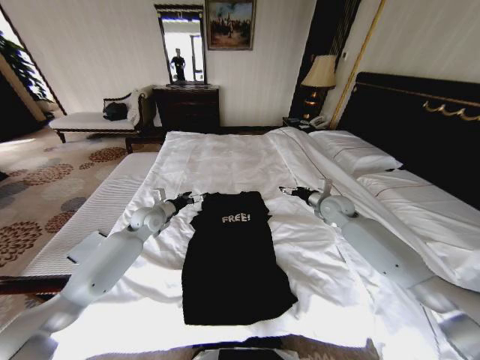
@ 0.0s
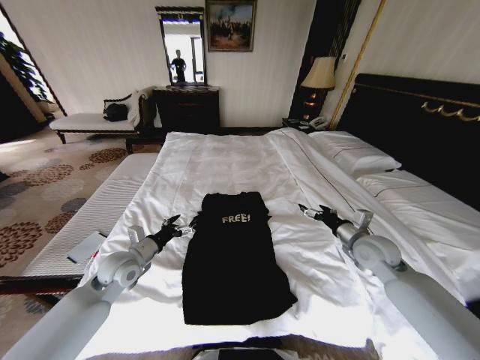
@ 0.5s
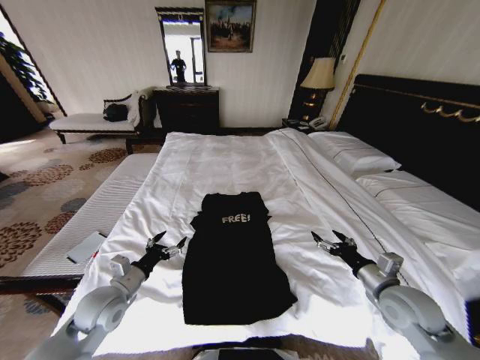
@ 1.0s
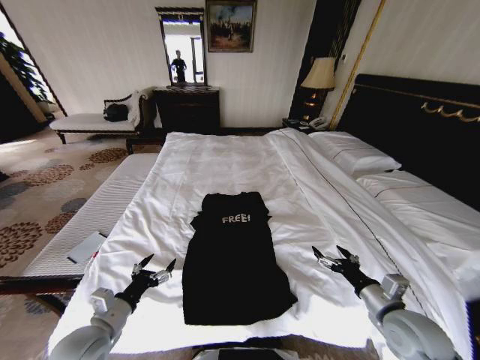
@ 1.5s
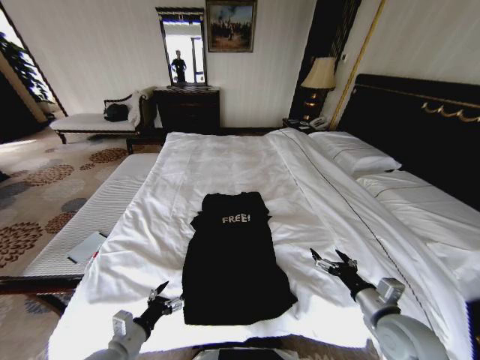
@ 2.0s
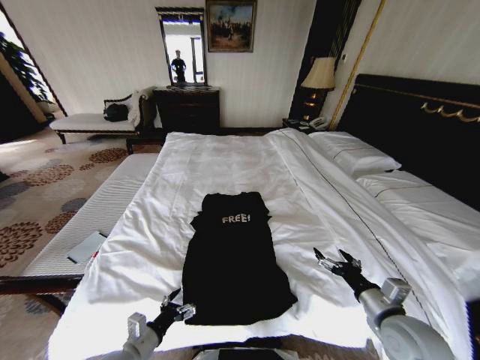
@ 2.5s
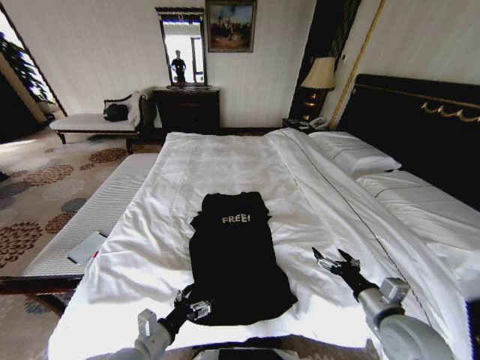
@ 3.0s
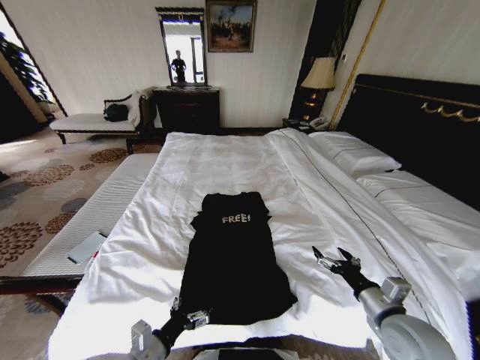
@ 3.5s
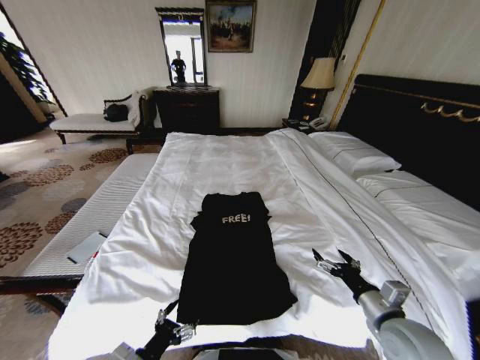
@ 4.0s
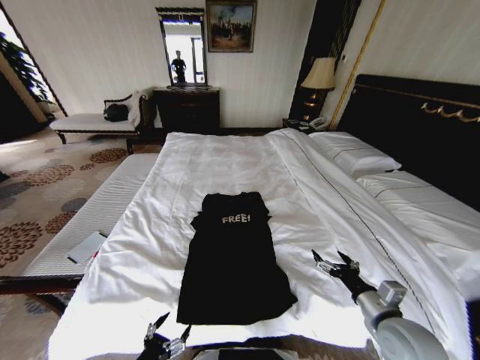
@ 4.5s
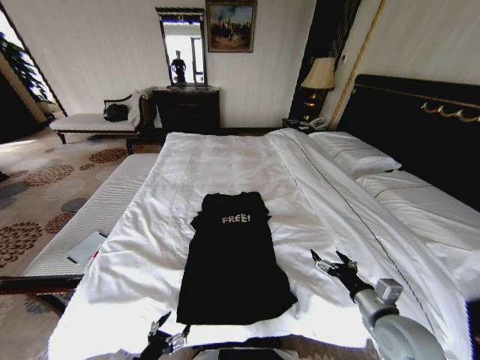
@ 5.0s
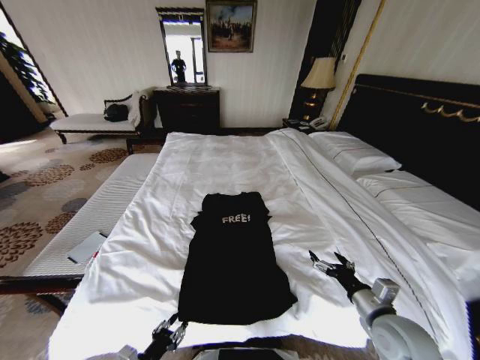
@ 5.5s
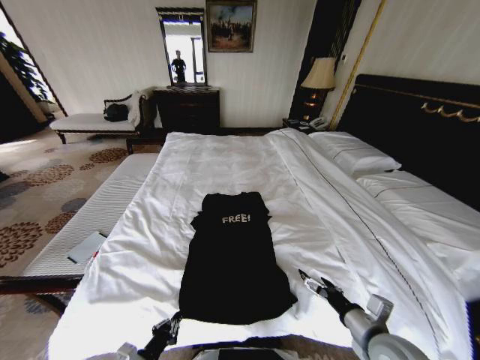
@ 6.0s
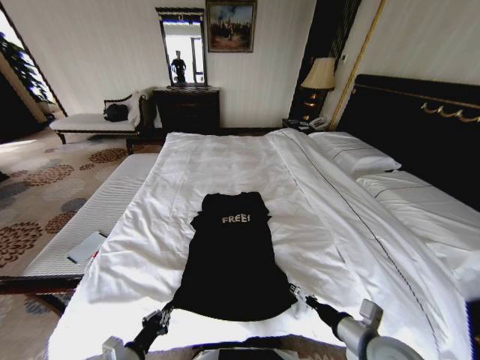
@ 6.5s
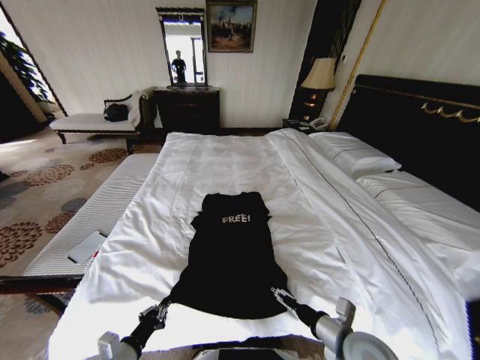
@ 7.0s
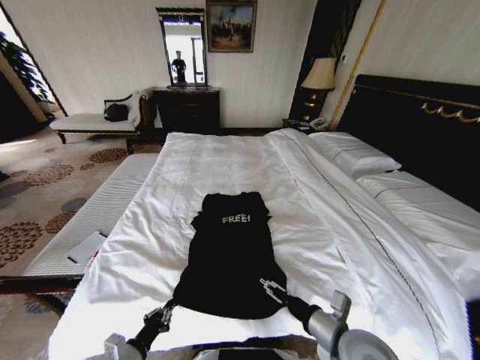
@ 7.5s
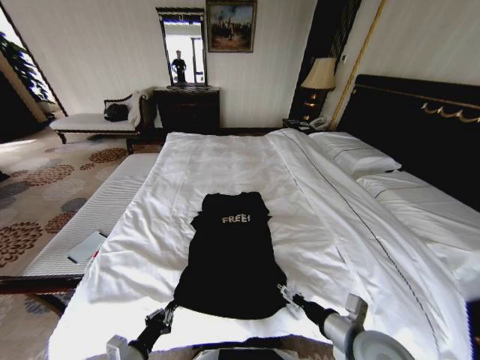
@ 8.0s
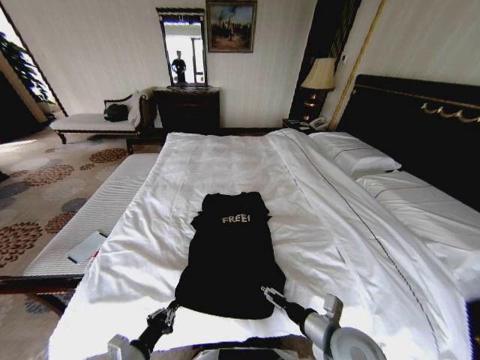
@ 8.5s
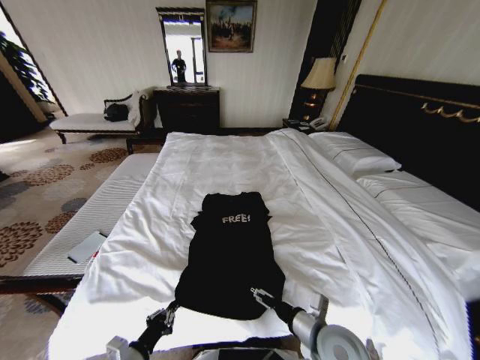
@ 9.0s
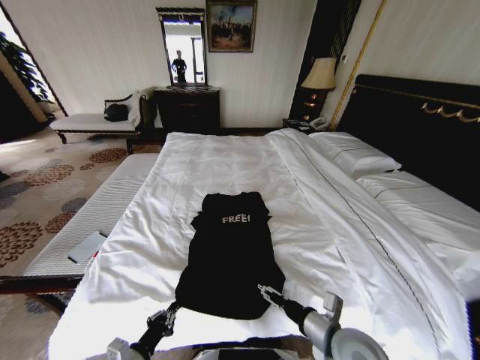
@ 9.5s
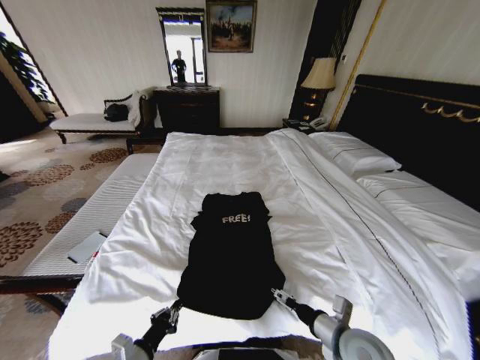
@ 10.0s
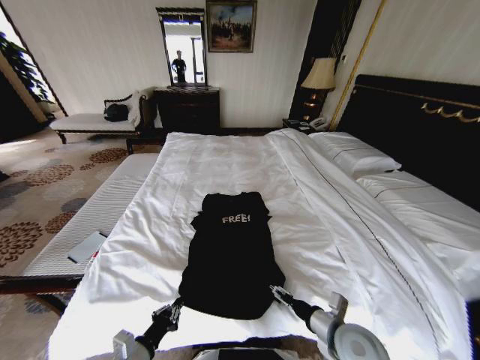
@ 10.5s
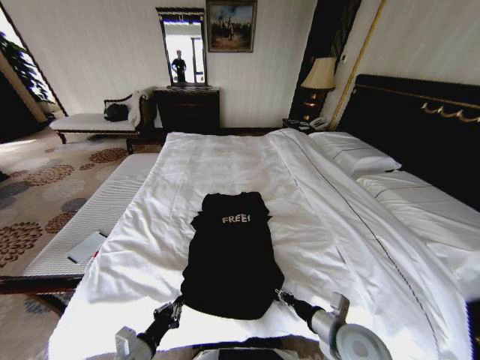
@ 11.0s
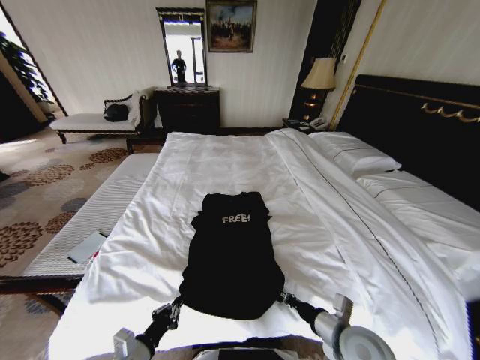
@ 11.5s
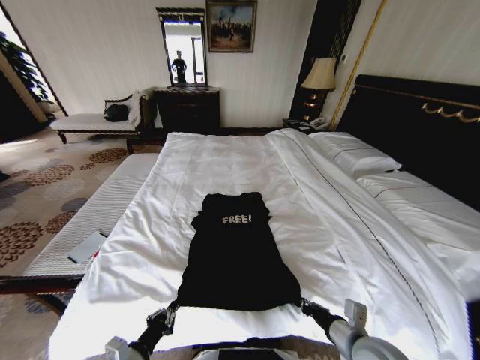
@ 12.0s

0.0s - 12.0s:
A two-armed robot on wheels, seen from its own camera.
Task of the whole recording: Fold the clothes on the bed.
0.0s - 2.0s: The grippers both shift backward by some 35 cm.
2.0s - 4.0s: The left gripper is displaced backward by roughly 5 cm.
4.0s - 6.0s: The left gripper heads downward, covering roughly 5 cm, and closes up.
6.0s - 8.0s: The right gripper travels to the left by roughly 5 cm.
10.0s - 12.0s: The right gripper closes.

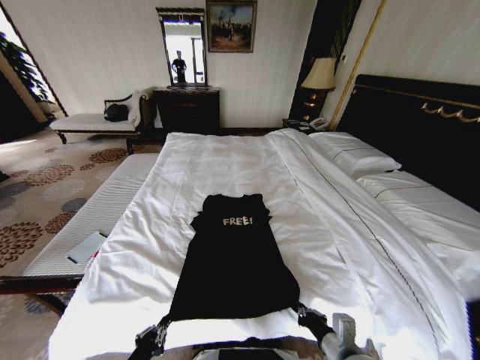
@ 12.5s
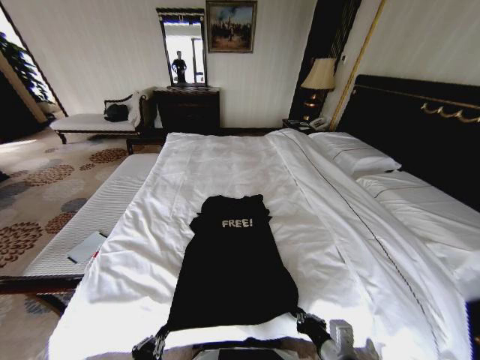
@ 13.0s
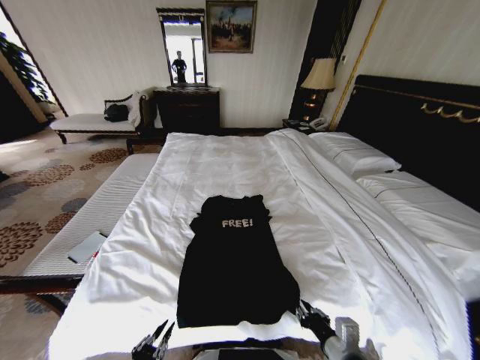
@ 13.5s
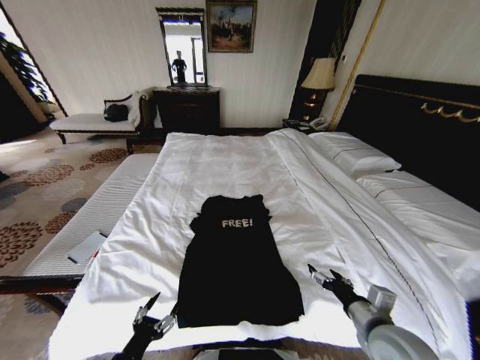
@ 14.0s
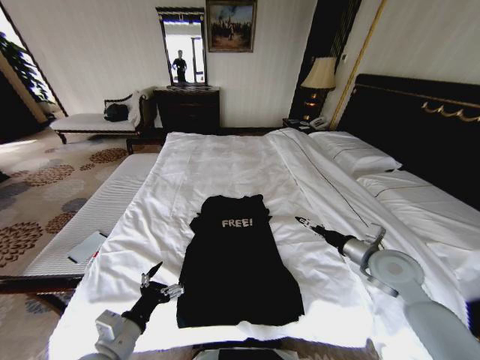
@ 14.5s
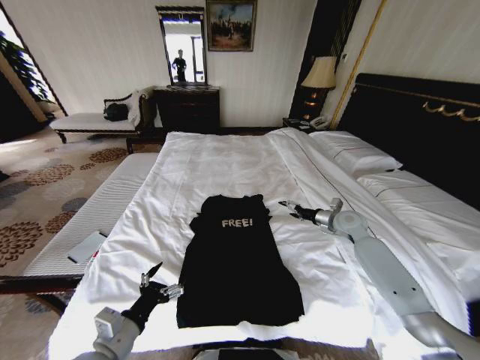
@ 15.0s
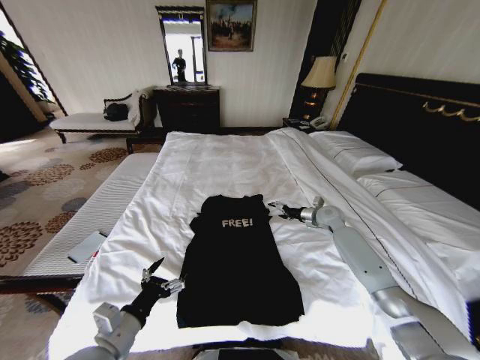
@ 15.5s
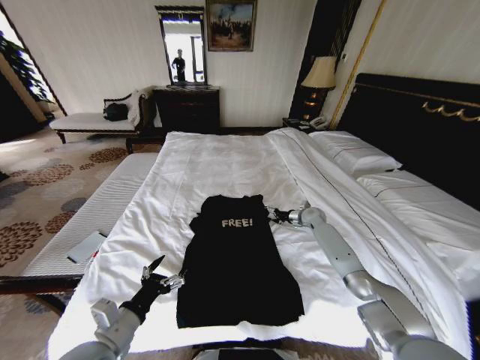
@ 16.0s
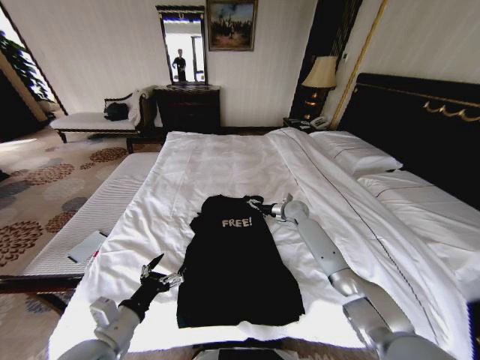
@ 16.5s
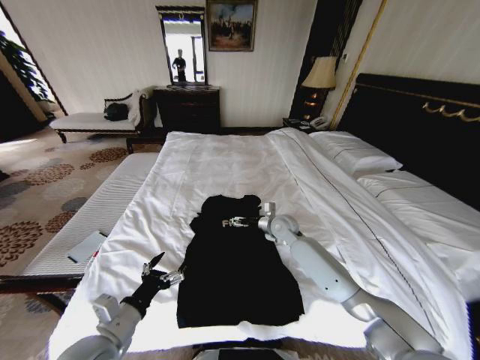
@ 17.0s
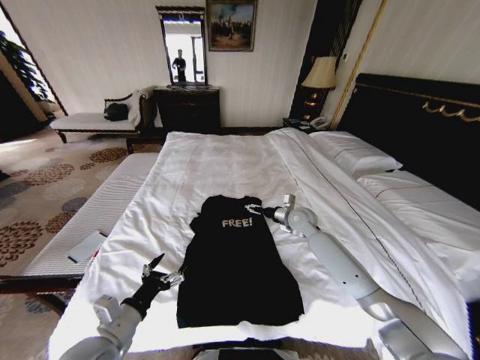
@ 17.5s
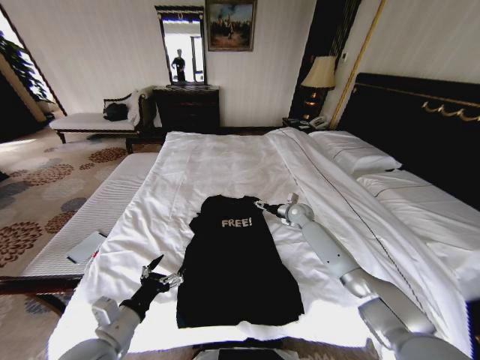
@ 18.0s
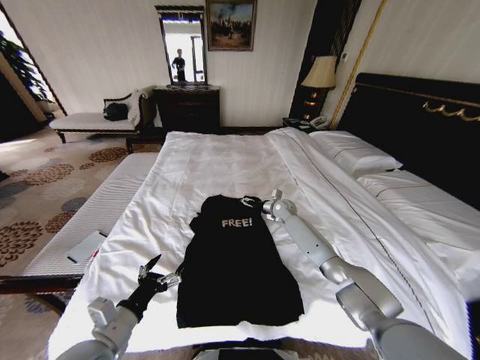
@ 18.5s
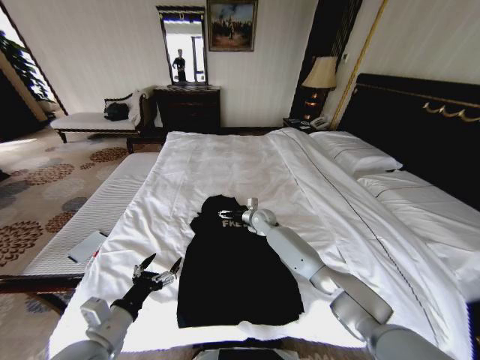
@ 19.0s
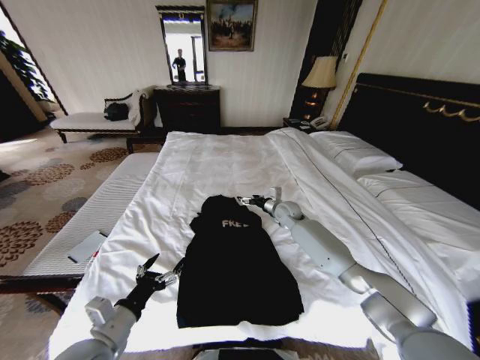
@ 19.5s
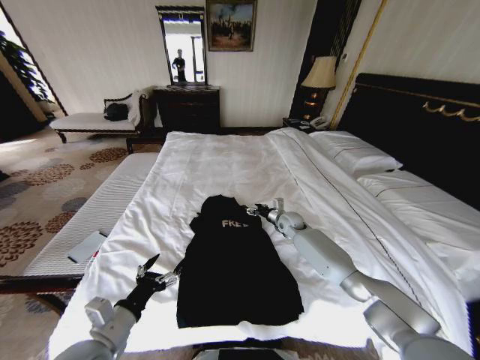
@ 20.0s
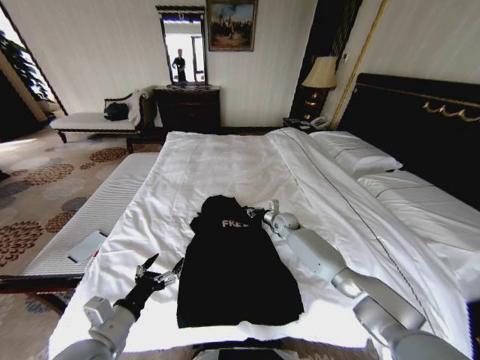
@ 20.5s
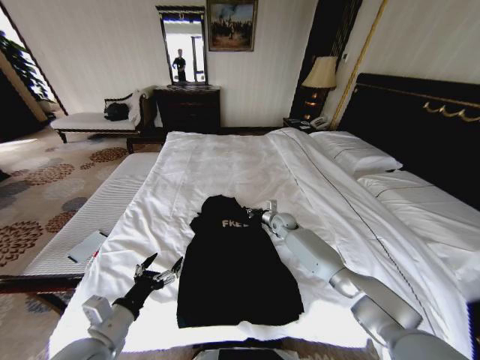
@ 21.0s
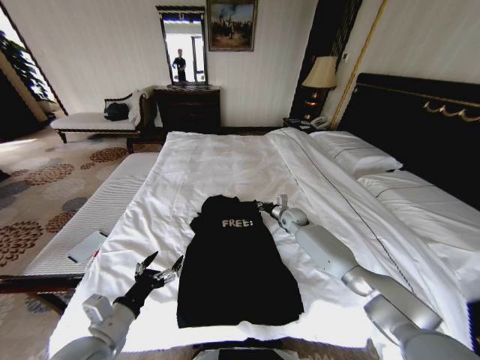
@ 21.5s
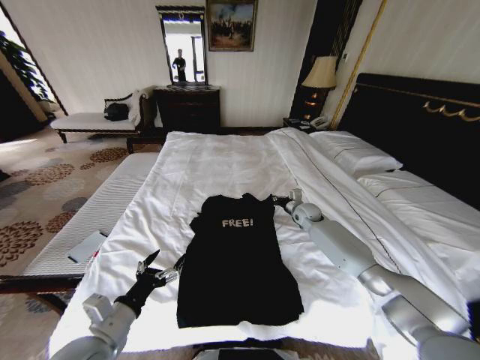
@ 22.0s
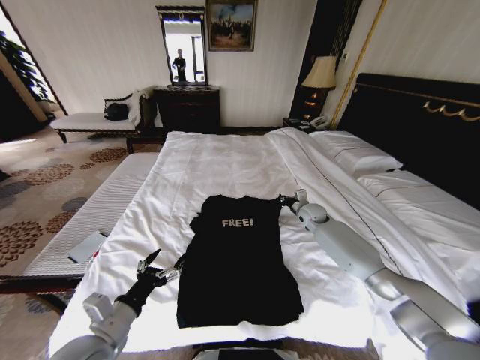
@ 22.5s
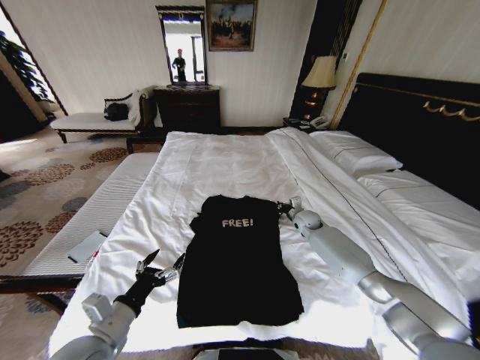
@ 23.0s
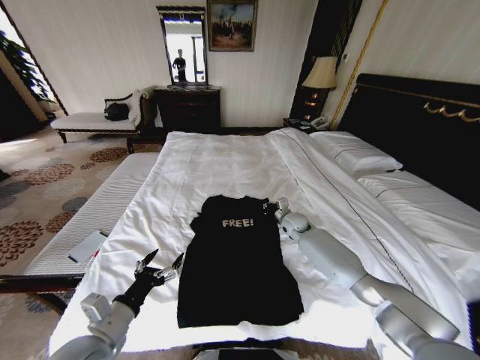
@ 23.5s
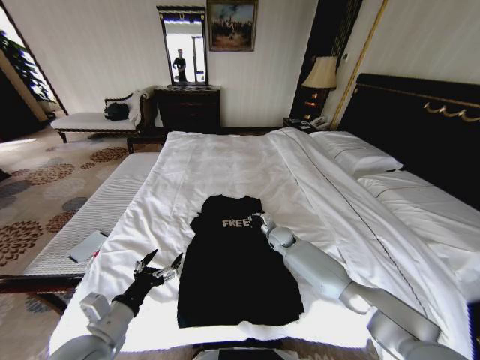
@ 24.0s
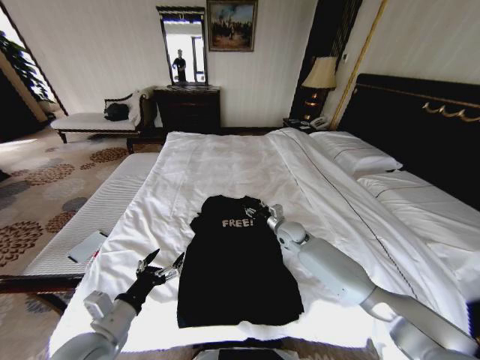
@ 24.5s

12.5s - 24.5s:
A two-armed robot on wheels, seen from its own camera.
Task of the whole recording: Fold the clothes on the bed.
12.5s - 14.5s: The left gripper heads forward and upward, covering roughly 10 cm, and opens up; the right gripper moves forward, to the right and upward, about 25 cm, and opens its fingers.
14.5s - 16.5s: The right gripper goes roughly 30 cm forward and to the left.
16.5s - 18.5s: The right gripper goes backward and returns, roughly 10 cm each way.
18.5s - 20.5s: The right gripper moves approximately 10 cm to the left and comes back, and closes up.
20.5s - 22.5s: The right gripper is displaced to the right and upward by about 10 cm.
22.5s - 24.5s: The right gripper travels to the left and backward by about 10 cm, and opens its fingers.

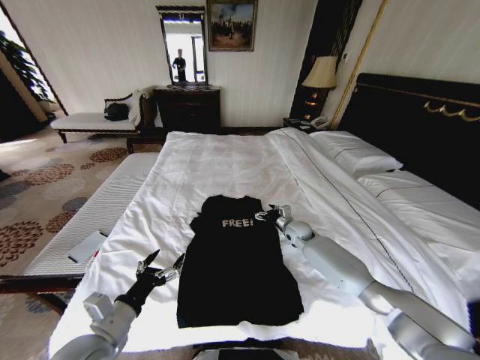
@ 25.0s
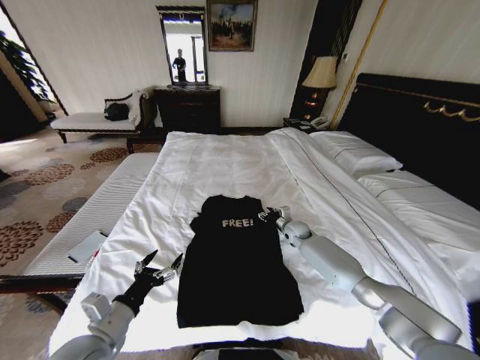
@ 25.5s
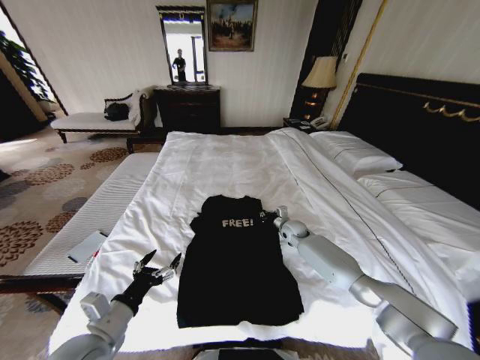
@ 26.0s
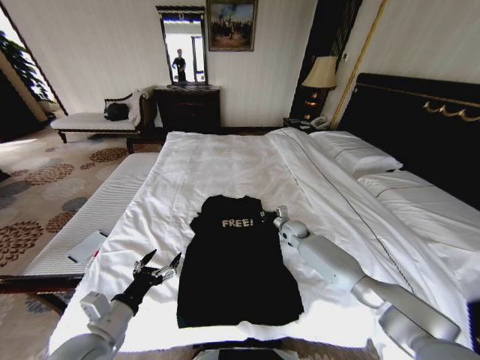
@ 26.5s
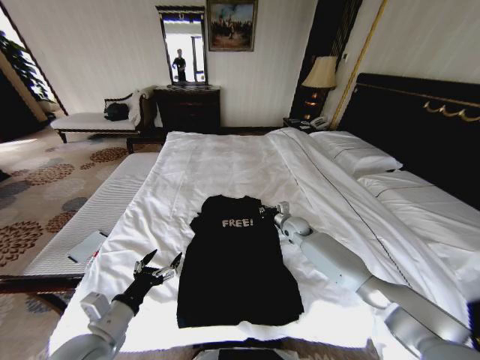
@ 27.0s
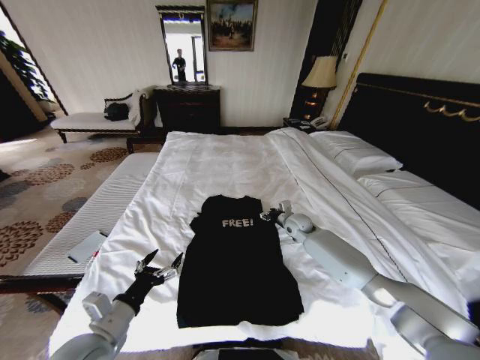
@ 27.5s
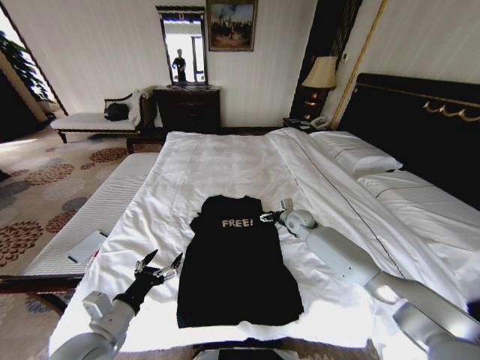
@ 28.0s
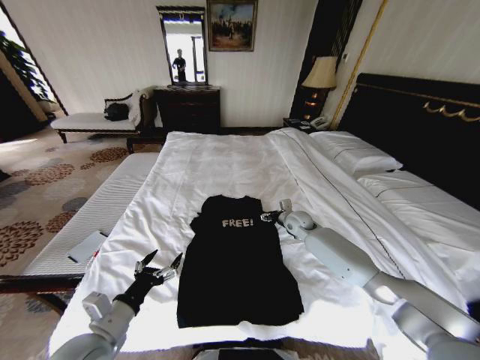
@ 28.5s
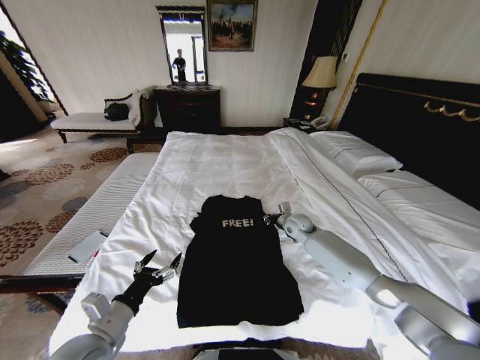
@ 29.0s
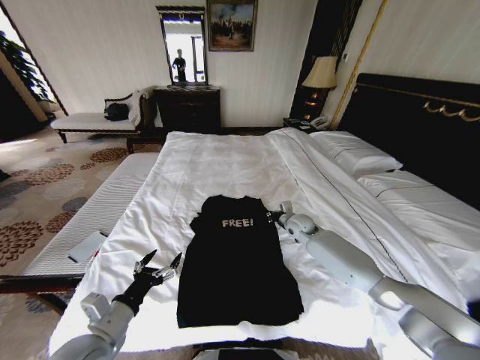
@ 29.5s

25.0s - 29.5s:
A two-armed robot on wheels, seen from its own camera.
Task of the whole recording: Fold the clothes on the bed.
25.0s - 27.0s: The right gripper closes.
27.0s - 29.5s: The right gripper opens, then closes once more.
